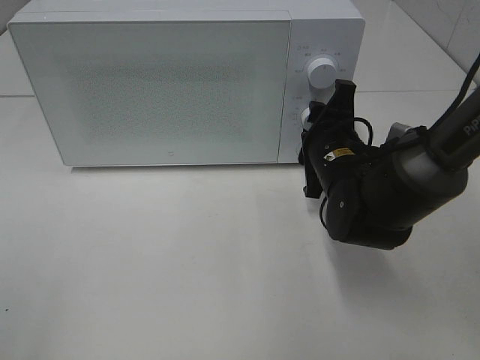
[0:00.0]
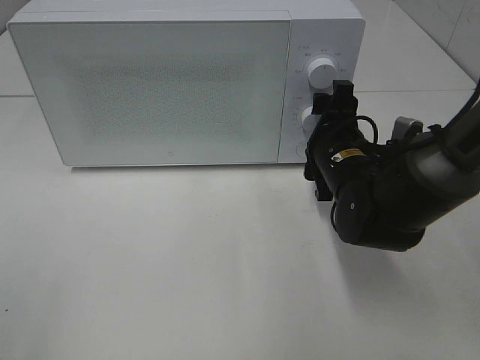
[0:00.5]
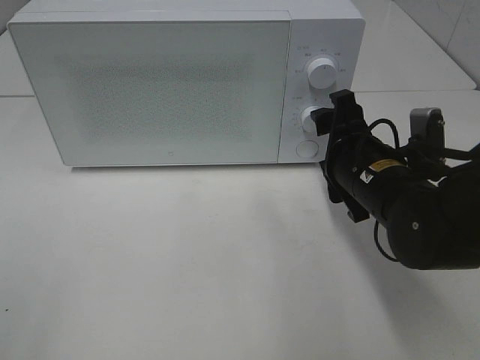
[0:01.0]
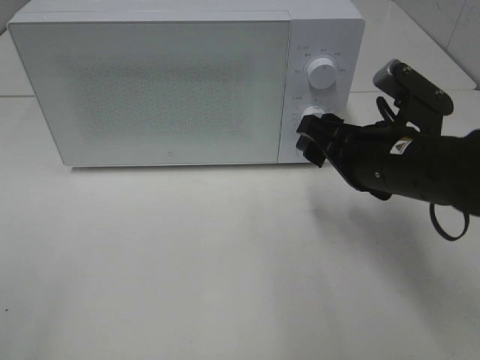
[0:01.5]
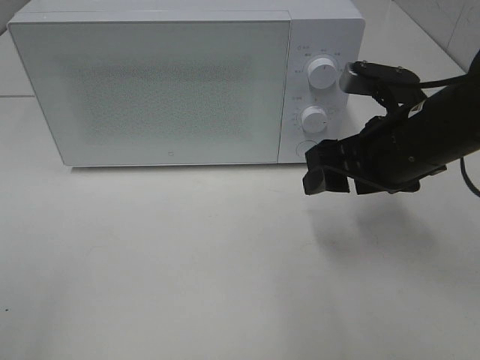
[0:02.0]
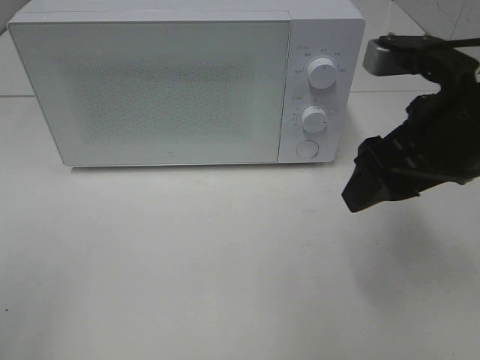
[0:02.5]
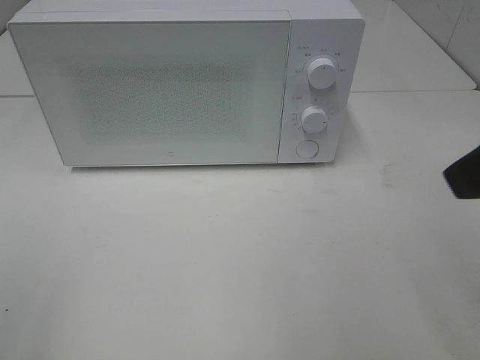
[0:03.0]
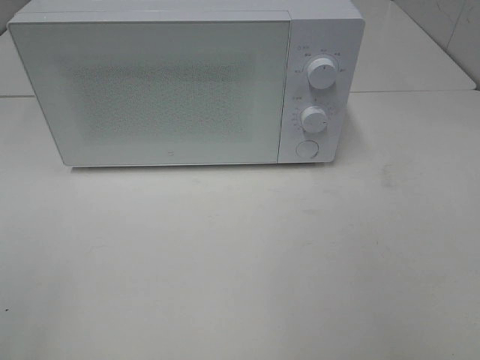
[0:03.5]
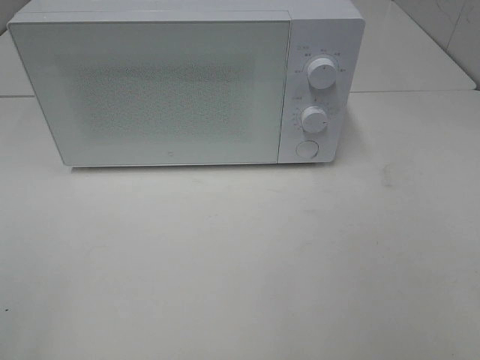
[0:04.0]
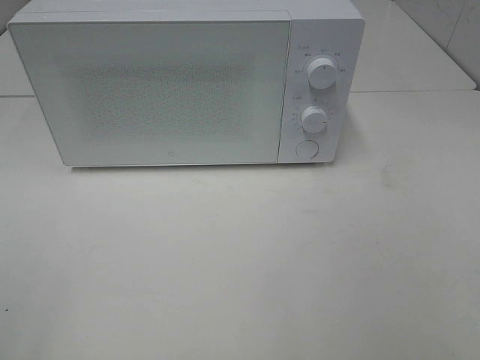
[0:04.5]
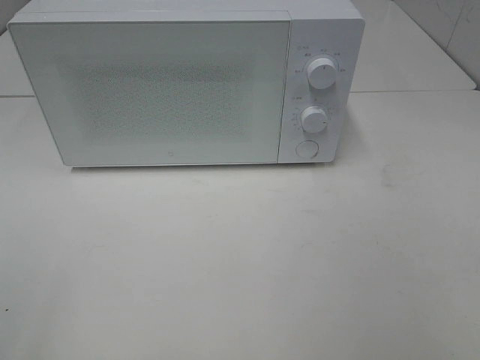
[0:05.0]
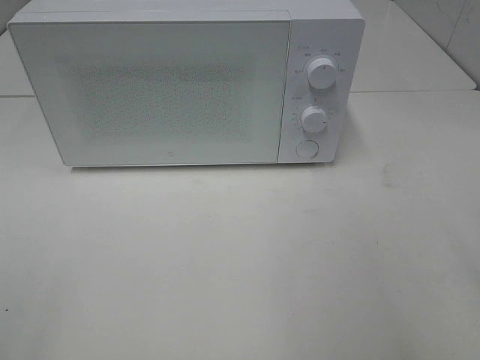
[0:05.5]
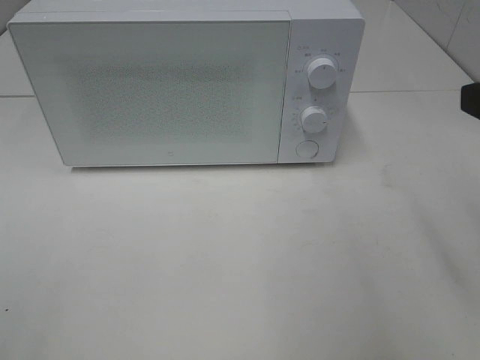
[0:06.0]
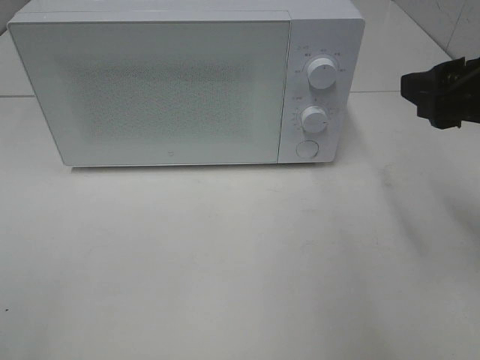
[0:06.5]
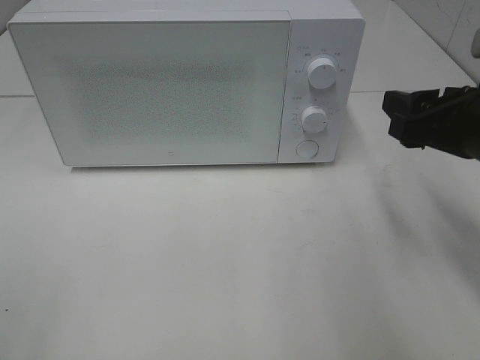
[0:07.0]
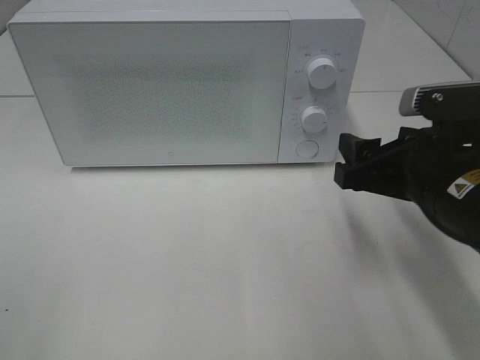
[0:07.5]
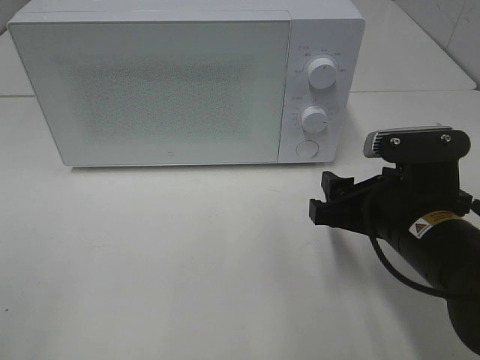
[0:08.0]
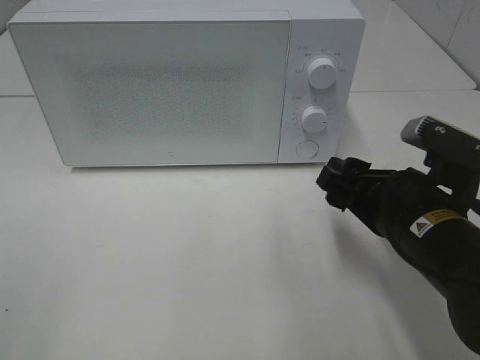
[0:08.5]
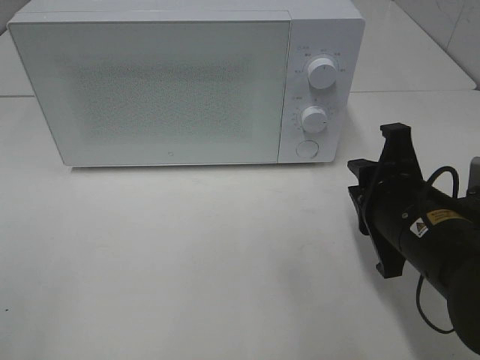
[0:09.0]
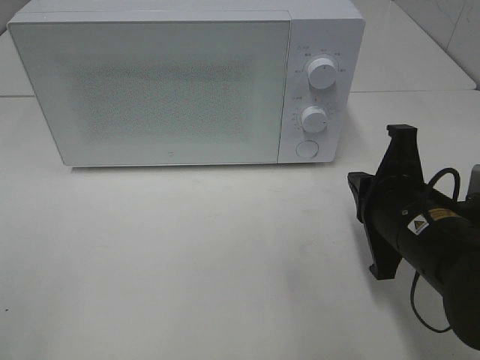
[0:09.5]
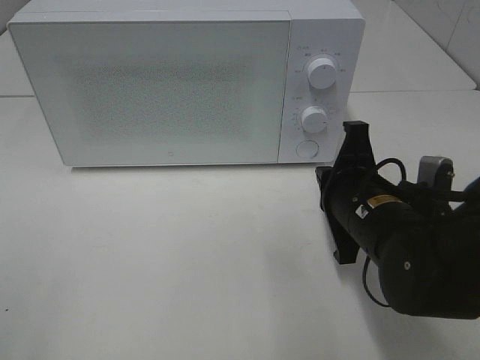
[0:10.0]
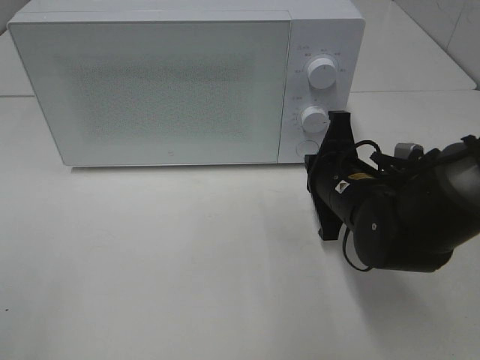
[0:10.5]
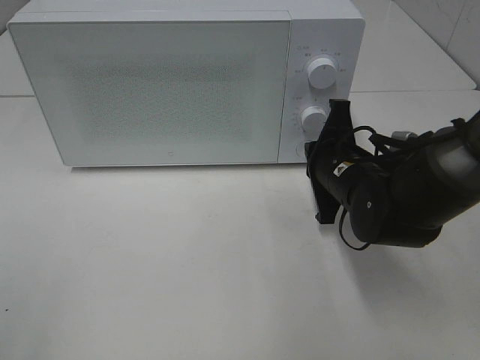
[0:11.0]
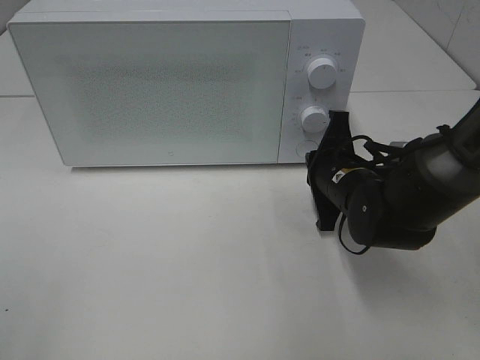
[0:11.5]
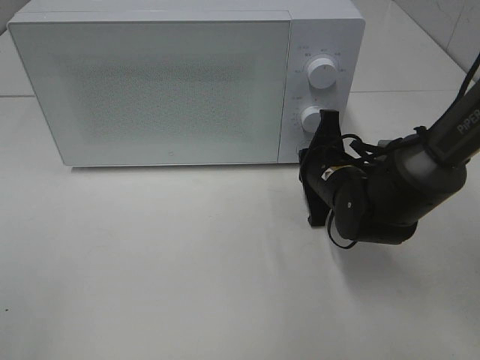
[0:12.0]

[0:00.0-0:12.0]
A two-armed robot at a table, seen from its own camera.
Task of the whole recording: Heat the burger.
0:00.0 to 0:02.0: The right gripper heads upward and backward, covering about 10 cm.
0:02.0 to 0:04.0: The right gripper shifts about 30 cm backward and to the right.
0:06.0 to 0:08.0: The right gripper shifts some 20 cm downward and to the left.
0:08.0 to 0:10.0: The right gripper ends up approximately 5 cm from where it was, and closes up.
0:10.0 to 0:12.0: The right gripper is displaced forward by approximately 10 cm.

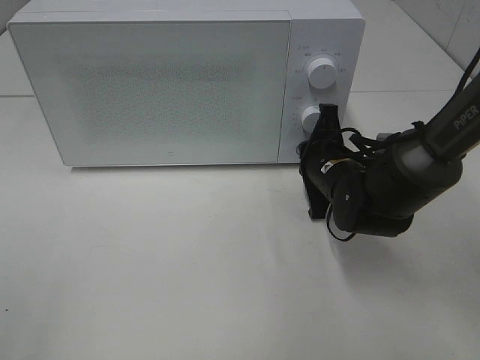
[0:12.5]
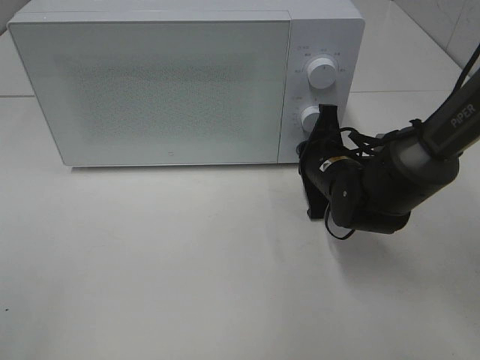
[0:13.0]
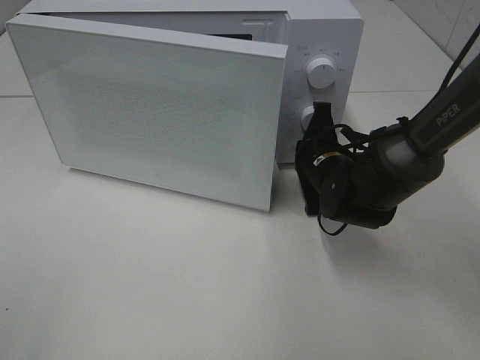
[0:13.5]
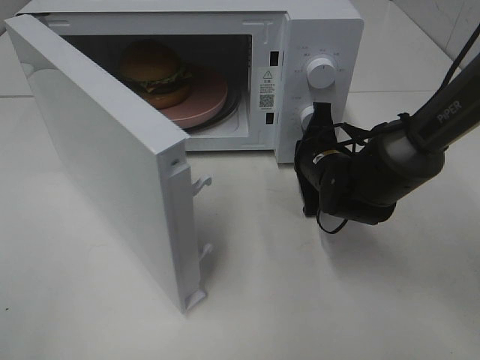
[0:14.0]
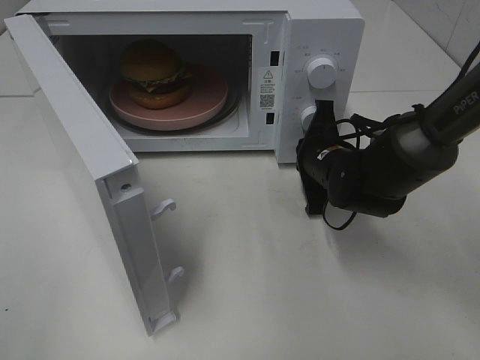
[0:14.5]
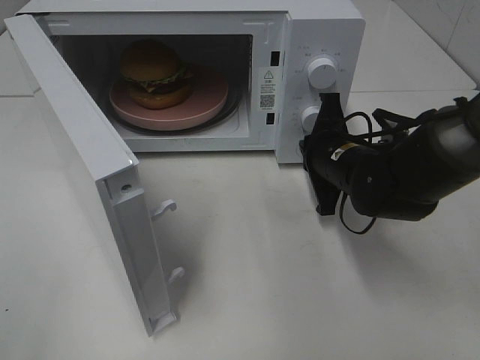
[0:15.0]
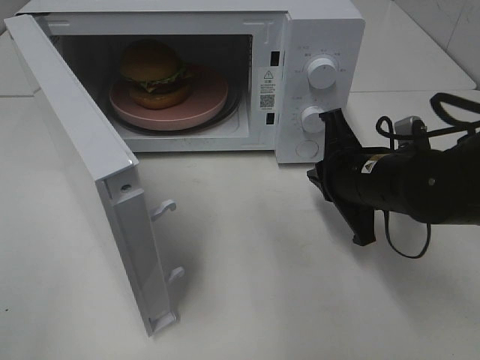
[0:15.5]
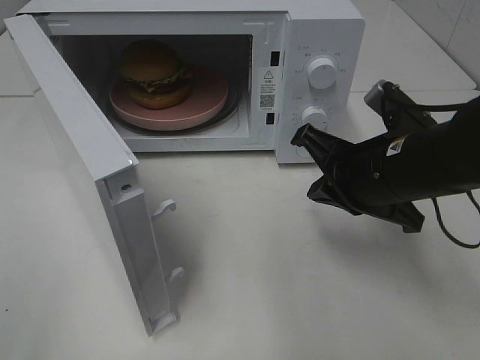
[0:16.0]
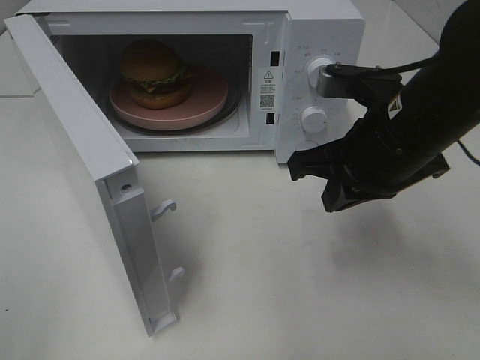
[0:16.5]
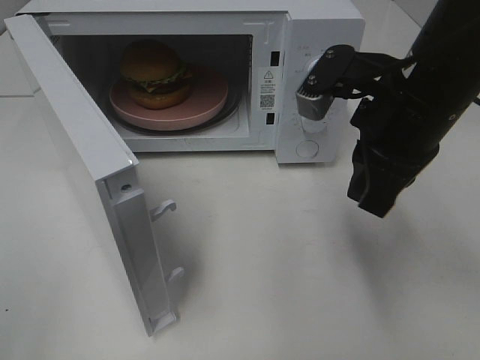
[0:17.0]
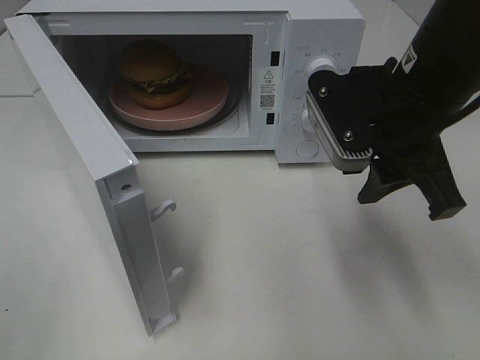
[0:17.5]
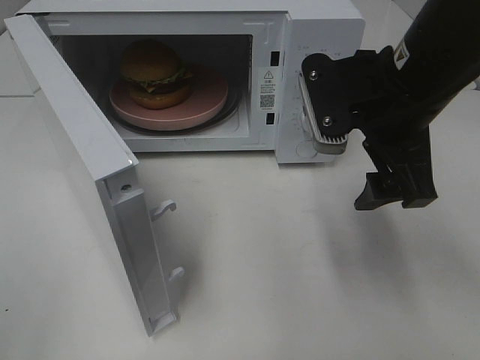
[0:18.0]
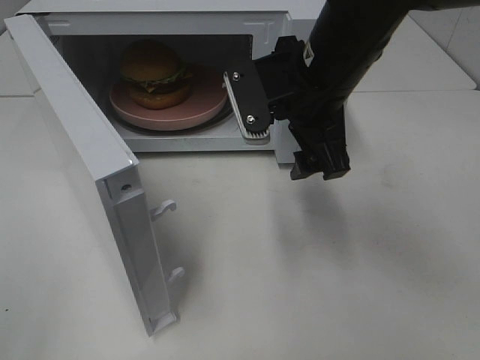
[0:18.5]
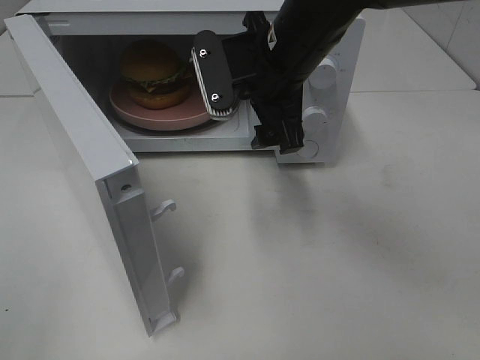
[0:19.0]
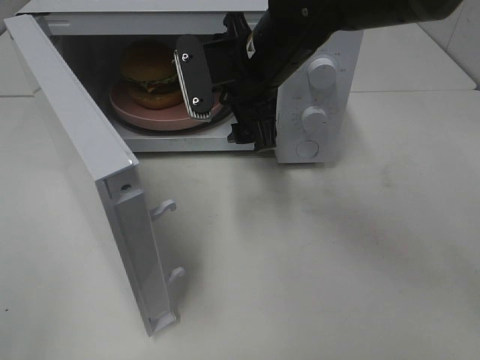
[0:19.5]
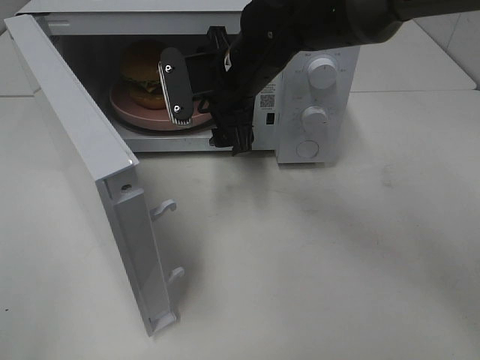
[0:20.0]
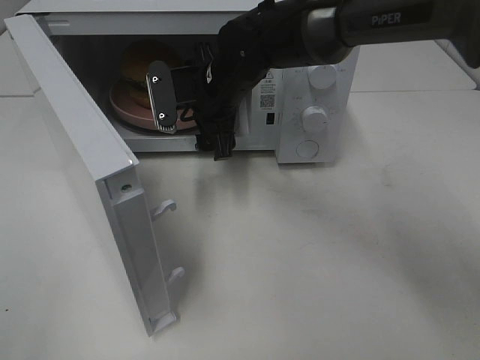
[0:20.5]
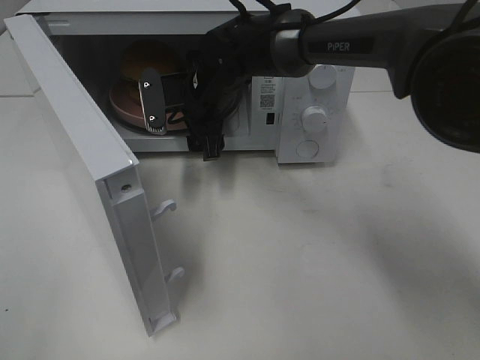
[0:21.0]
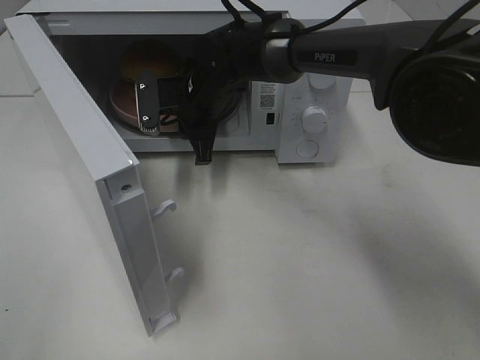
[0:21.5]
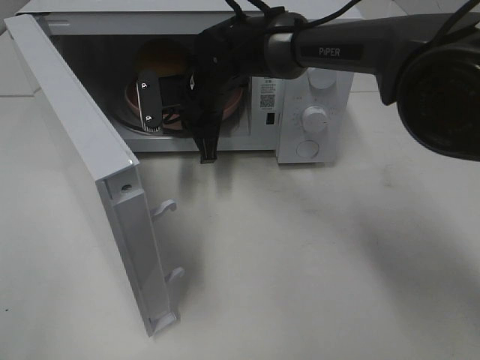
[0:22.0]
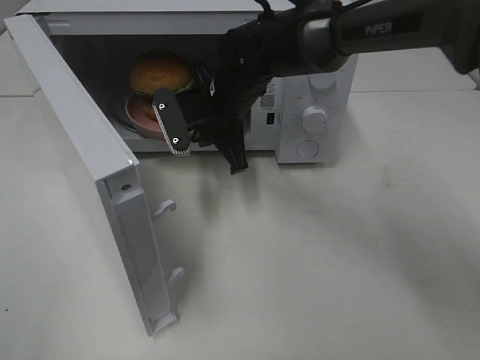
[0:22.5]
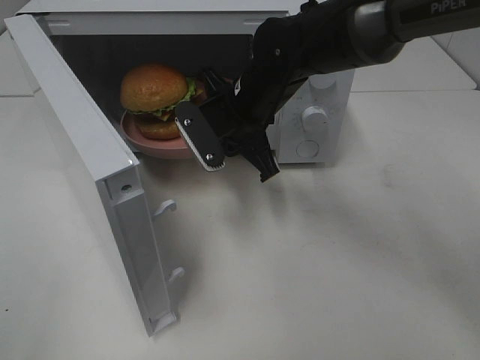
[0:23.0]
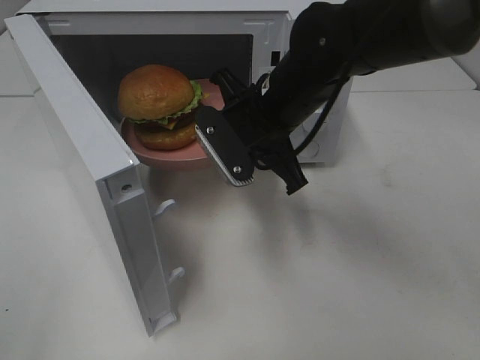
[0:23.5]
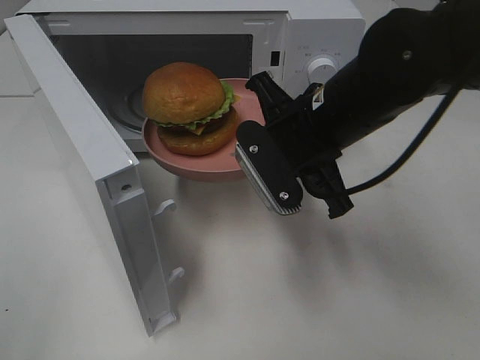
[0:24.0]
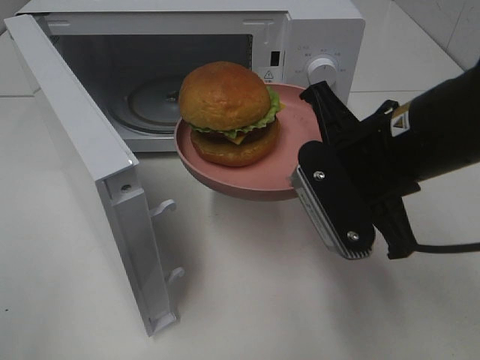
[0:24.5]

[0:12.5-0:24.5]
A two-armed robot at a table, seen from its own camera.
Task of the whole recording: Heat the burger.
Step, 0:12.5 to 0:15.0: Right hand: press the switch.
Step, 0:15.5 to 0:21.5: Right hand: grab the plate with the hamburger.
0:14.5 to 0:16.5: The right gripper is displaced upward and backward by about 15 cm.
0:16.5 to 0:18.5: The right gripper moves to the left and forward, approximately 10 cm, and opens up.
0:18.5 to 0:20.5: The right gripper goes about 15 cm forward, to the left and downward.
0:20.5 to 0:22.5: The right gripper closes its fingers.
0:22.5 to 0:24.5: The right gripper goes roughly 20 cm backward and to the right.

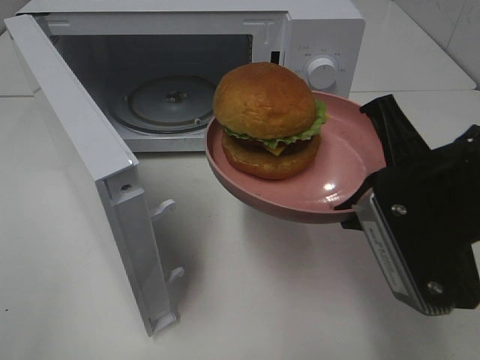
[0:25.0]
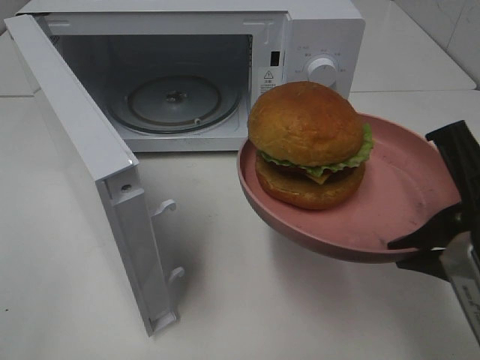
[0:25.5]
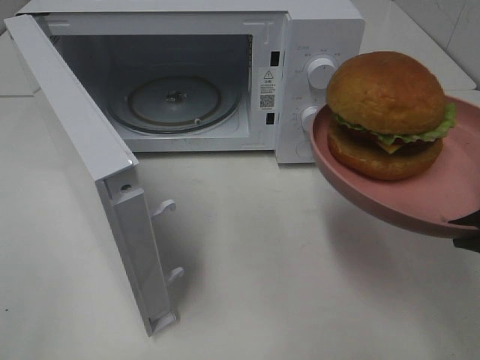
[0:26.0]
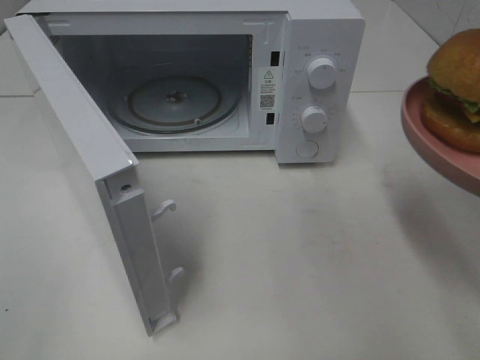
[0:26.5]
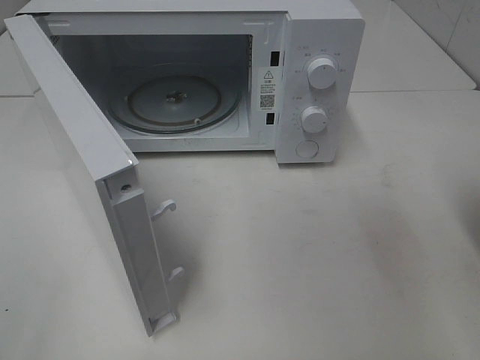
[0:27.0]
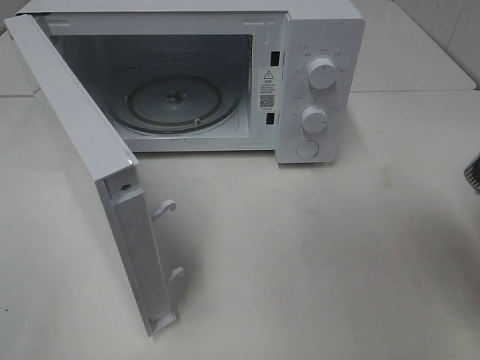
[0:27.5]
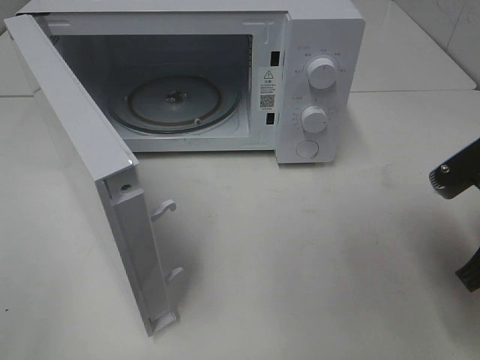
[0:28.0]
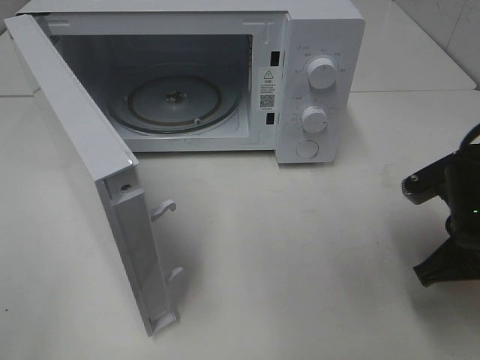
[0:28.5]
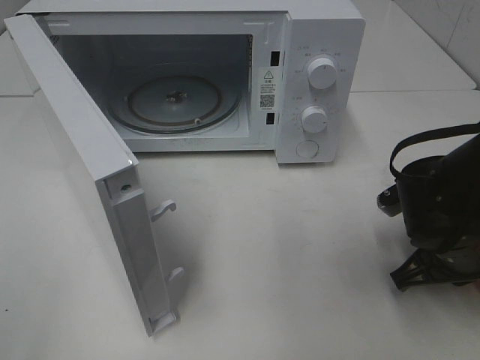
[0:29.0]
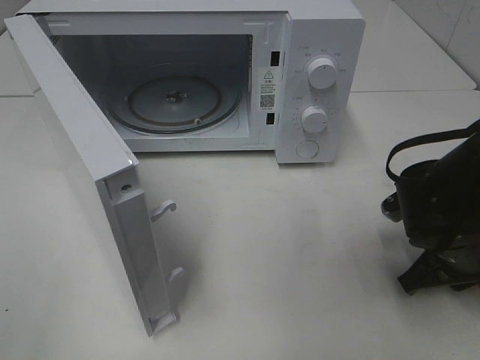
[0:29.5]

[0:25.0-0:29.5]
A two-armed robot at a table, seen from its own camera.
Task of the whole recording: Heat the burger.
0:25.0 to 0:27.0: The right gripper travels to the right by approximately 10 cm.
0:27.0 to 0:29.5: The right gripper goes about 20 cm downward and forward.
